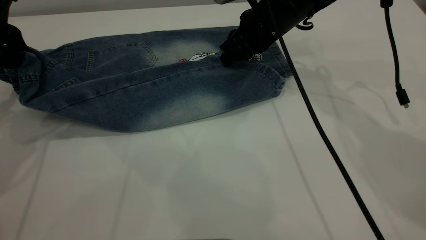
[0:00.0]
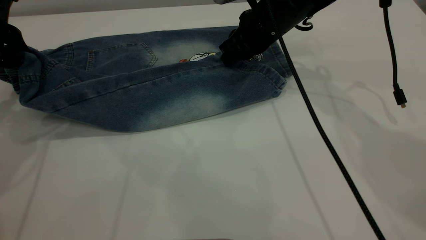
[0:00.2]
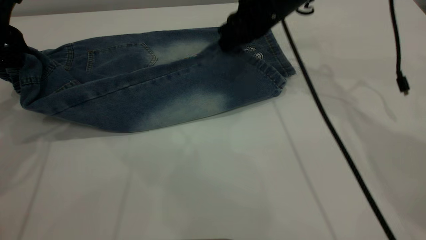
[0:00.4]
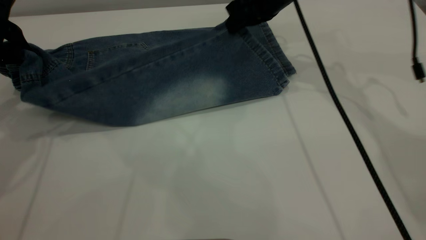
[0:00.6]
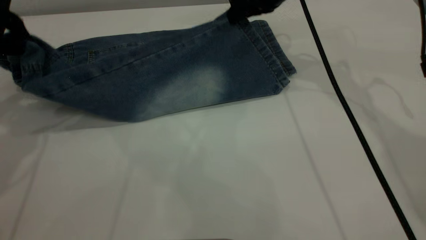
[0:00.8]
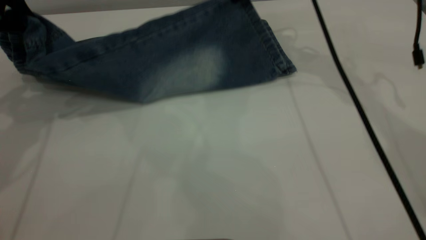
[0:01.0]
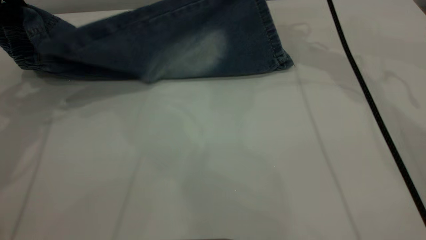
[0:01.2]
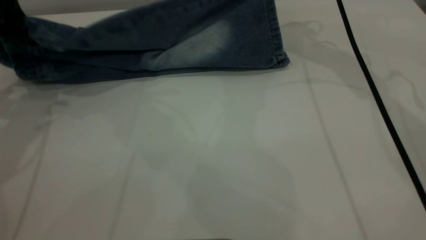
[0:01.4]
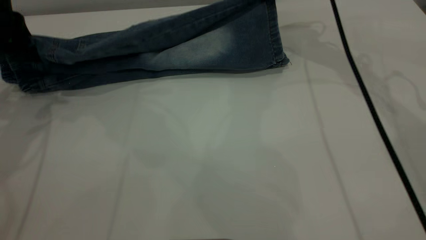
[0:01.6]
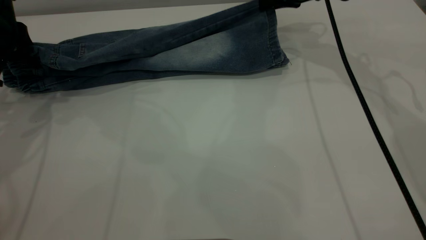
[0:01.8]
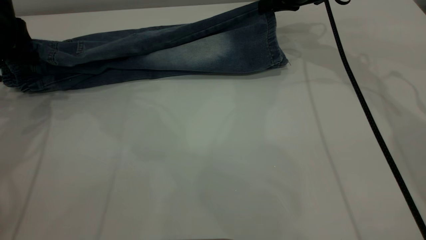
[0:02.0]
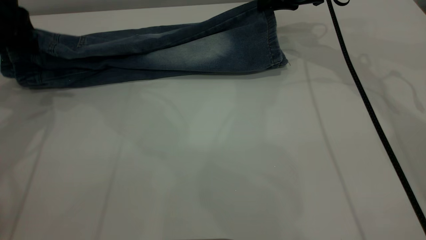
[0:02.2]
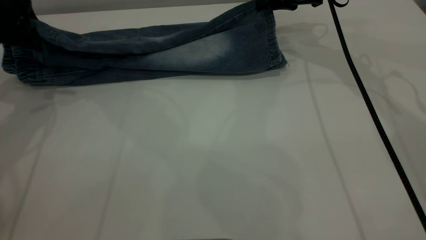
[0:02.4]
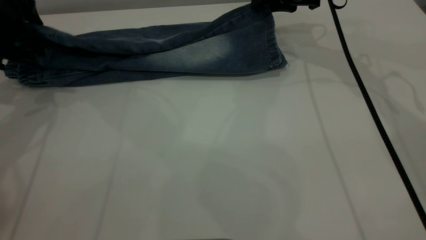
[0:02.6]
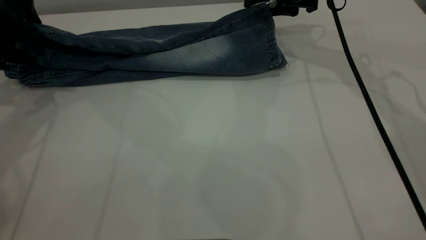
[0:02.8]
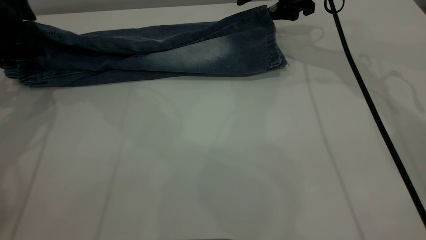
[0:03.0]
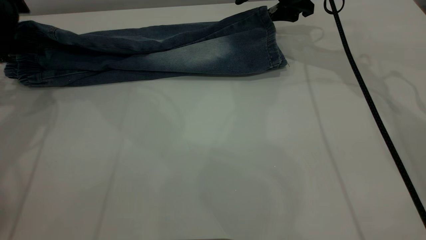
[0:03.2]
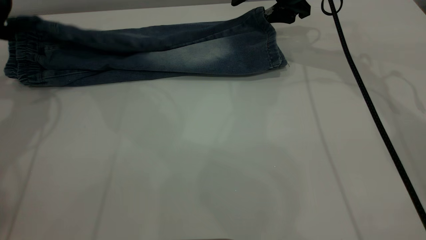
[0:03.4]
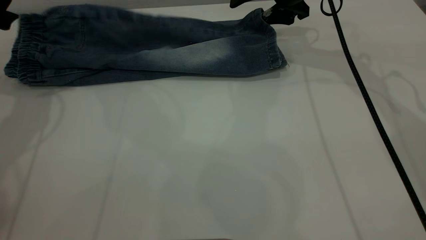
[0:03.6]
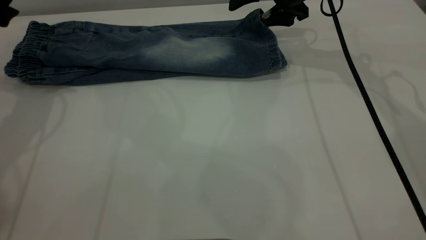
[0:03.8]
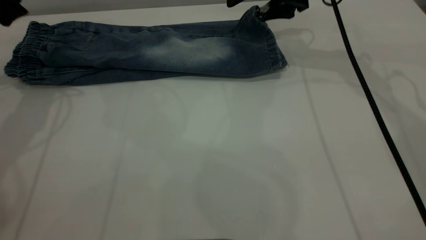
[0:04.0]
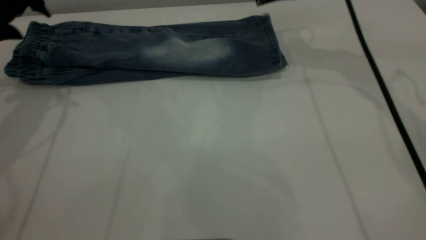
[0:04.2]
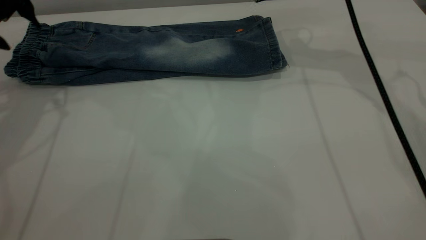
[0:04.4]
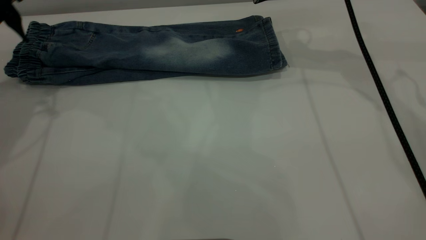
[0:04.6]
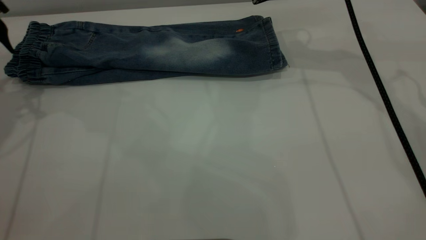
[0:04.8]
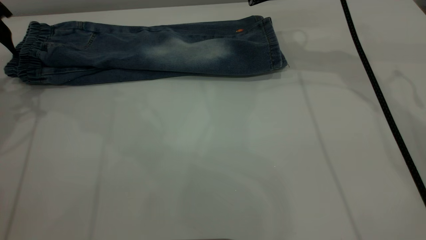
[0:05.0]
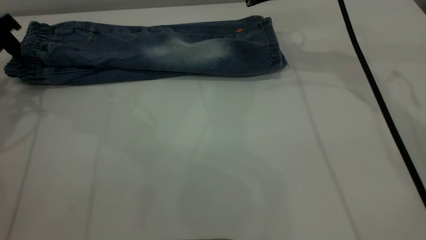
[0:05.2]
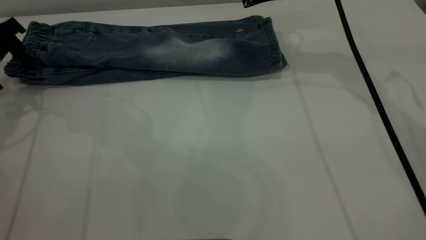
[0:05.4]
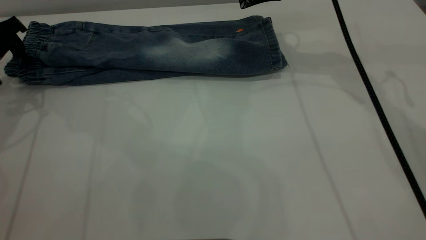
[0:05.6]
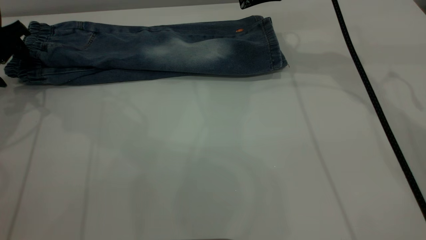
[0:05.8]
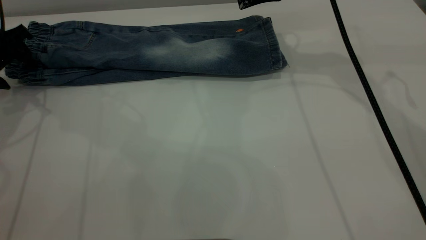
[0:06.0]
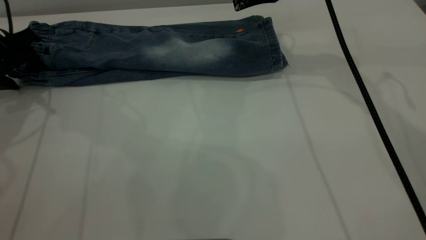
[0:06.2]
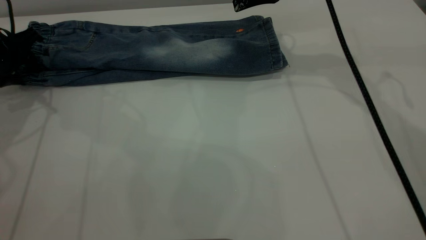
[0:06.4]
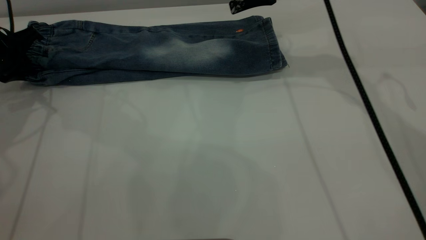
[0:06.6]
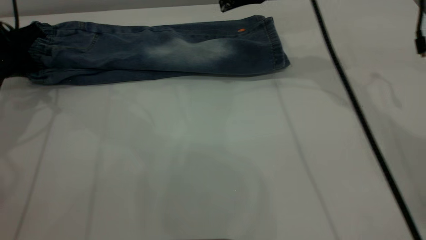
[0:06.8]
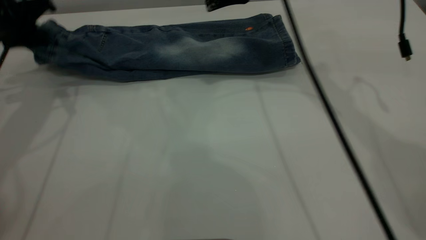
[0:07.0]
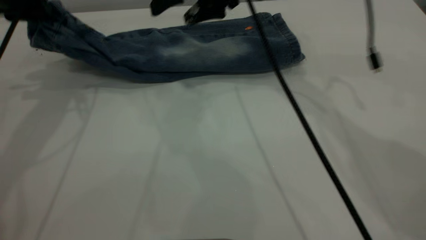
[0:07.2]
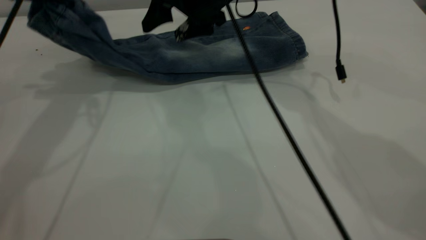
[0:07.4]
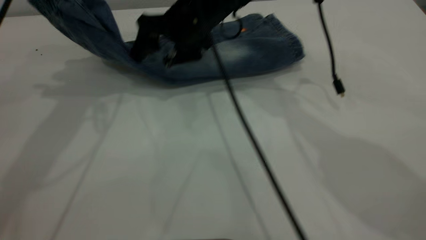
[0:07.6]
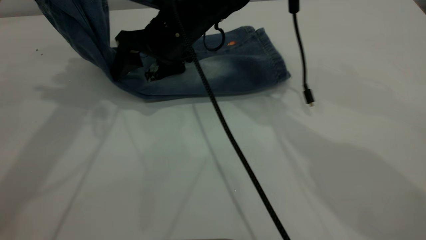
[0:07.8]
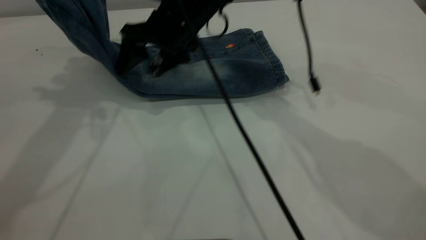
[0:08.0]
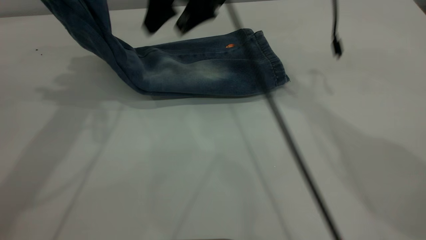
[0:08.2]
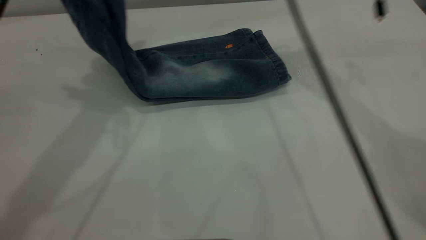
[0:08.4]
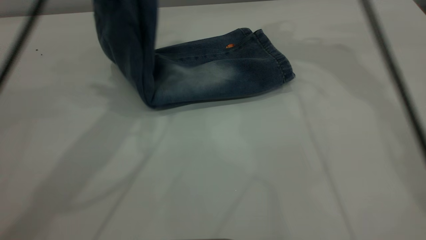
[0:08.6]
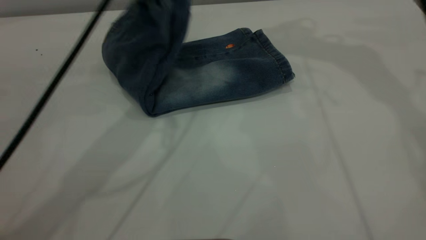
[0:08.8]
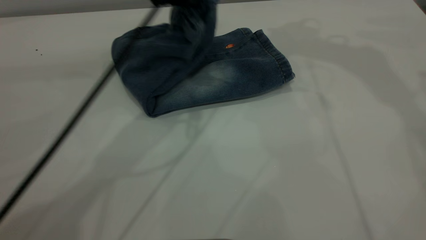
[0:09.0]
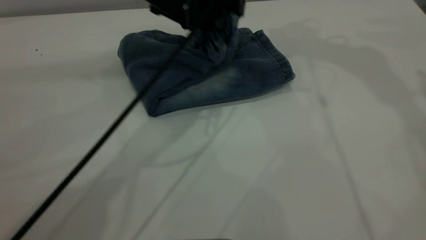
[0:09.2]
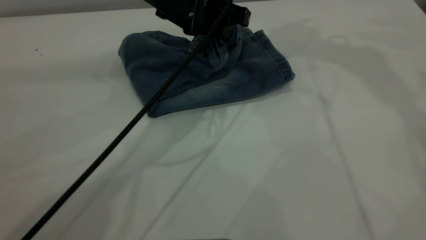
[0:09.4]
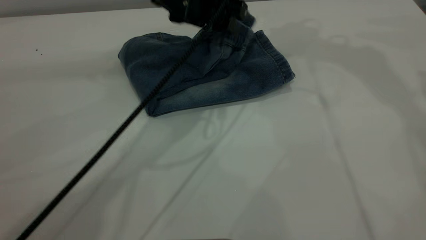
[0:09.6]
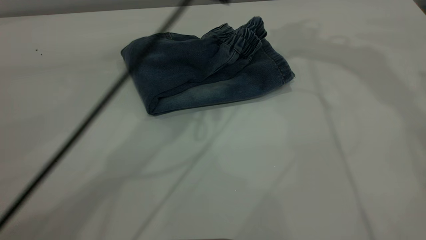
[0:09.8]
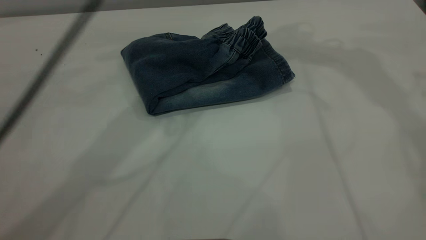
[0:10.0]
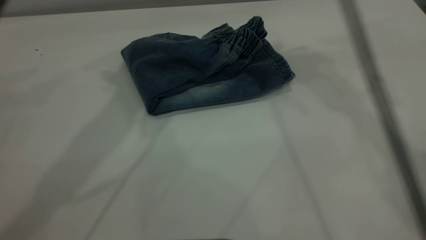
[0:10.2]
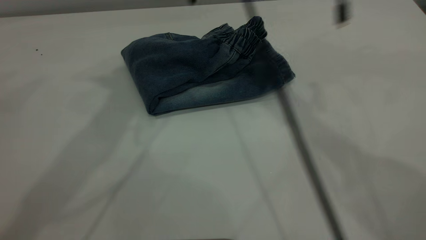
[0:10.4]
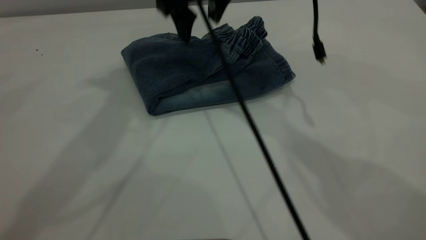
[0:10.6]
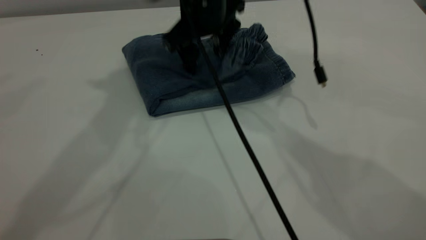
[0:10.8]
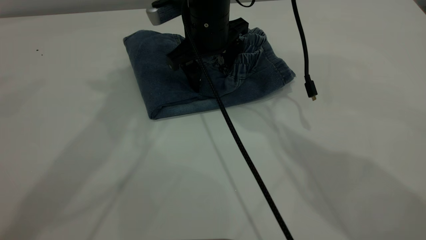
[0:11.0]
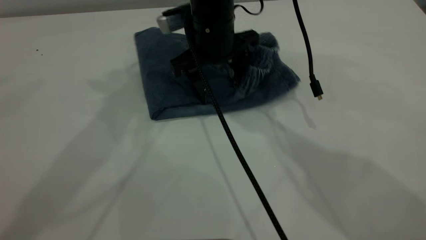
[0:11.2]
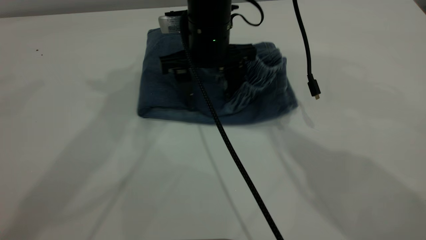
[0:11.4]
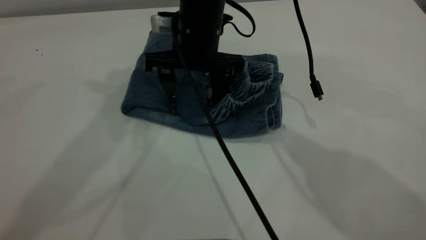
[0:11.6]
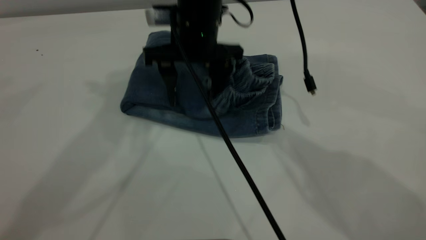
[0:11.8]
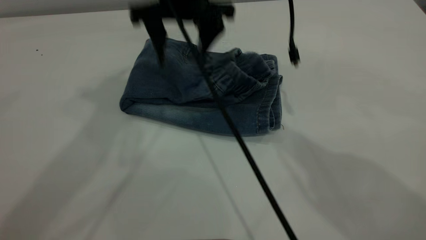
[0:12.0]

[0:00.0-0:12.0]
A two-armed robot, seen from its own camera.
Step, 0:00.0 to 0:04.4: Fold the bottom of the pants upward.
Step, 0:04.6 to 0:10.0: Fold the pants from left to right.
0:00.0 to 0:01.6: The right gripper is displaced to the right, upward and forward by roughly 10 cm.
0:01.6 to 0:03.0: The right gripper opens up; the left gripper opens.
0:03.0 to 0:04.4: The right gripper heads upward, covering approximately 5 cm.
0:04.4 to 0:06.0: The left gripper is displaced downward by some 10 cm.
0:06.0 to 0:07.6: The right gripper moves to the left and downward, roughly 15 cm; the left gripper shifts roughly 20 cm upward and to the right, and closes up.
0:07.6 to 0:09.0: The right gripper goes roughly 30 cm upward and to the right. Meanwhile the left gripper shifts roughly 20 cm to the right and downward.
0:09.0 to 0:10.4: The right gripper shifts some 20 cm to the left and downward. Meanwhile the left gripper heads upward and to the left, covering about 20 cm, and opens up.
0:10.4 to 0:12.0: The right gripper moves roughly 10 cm downward and comes back. The left gripper moves about 5 cm.

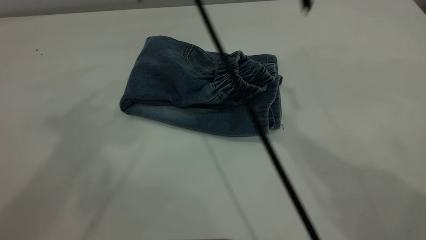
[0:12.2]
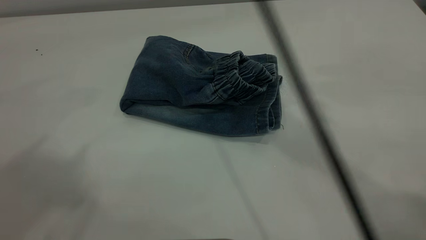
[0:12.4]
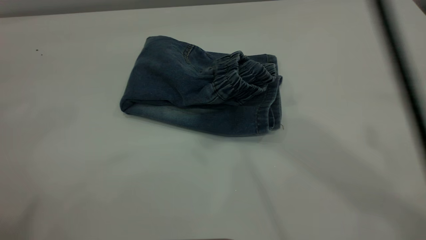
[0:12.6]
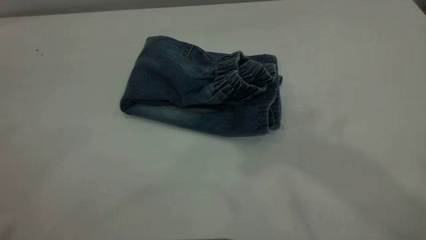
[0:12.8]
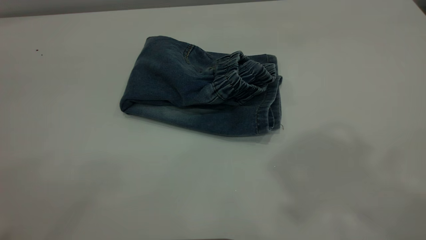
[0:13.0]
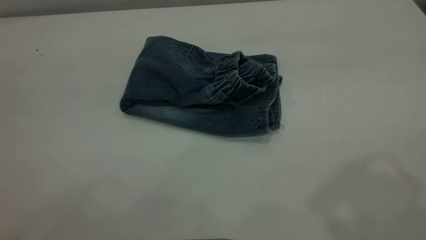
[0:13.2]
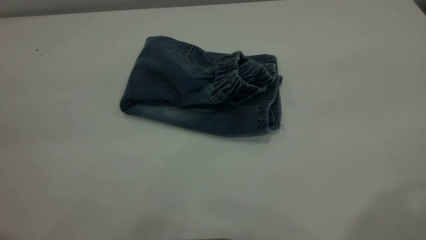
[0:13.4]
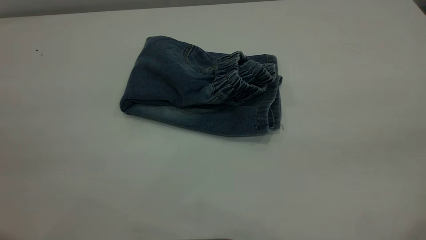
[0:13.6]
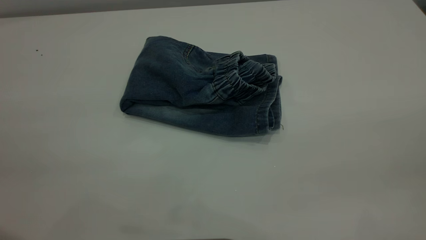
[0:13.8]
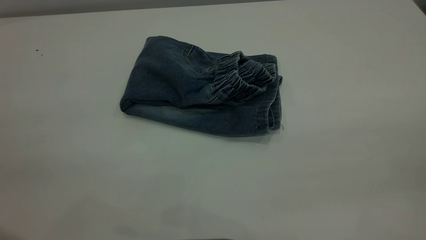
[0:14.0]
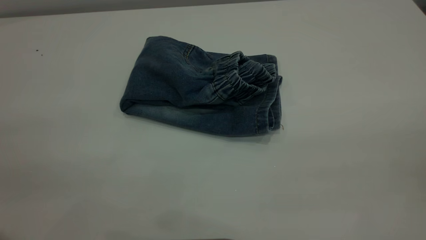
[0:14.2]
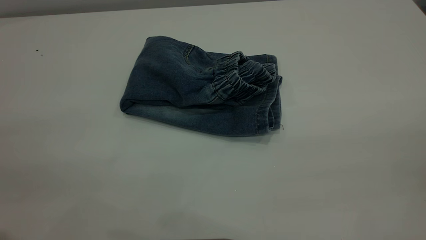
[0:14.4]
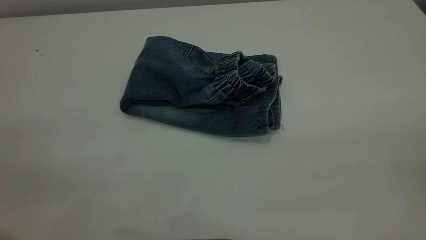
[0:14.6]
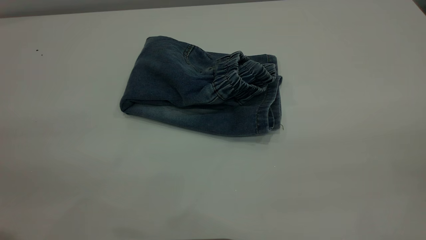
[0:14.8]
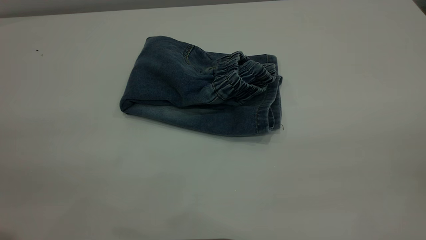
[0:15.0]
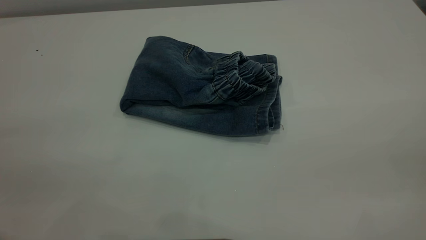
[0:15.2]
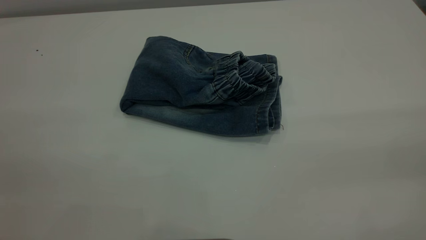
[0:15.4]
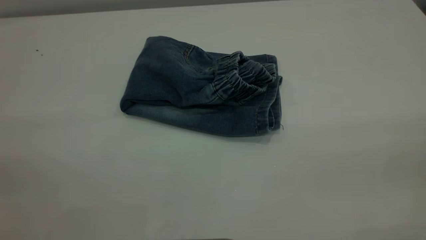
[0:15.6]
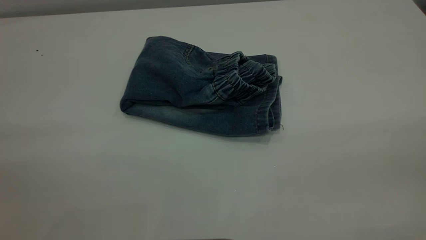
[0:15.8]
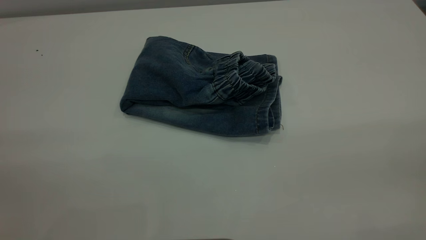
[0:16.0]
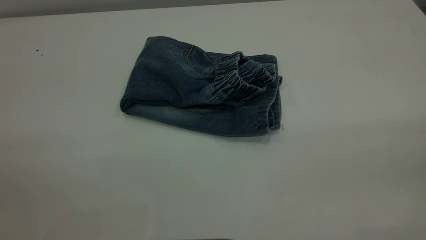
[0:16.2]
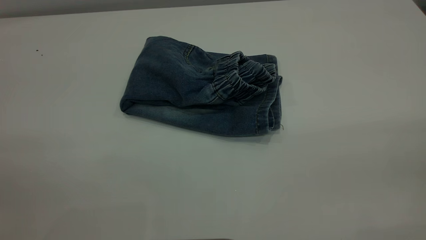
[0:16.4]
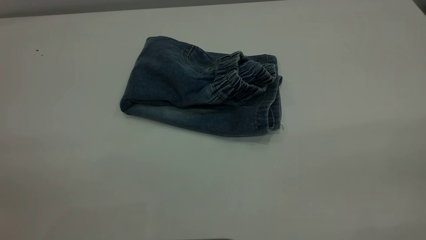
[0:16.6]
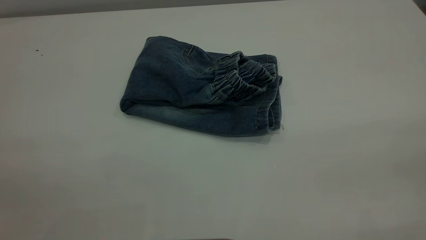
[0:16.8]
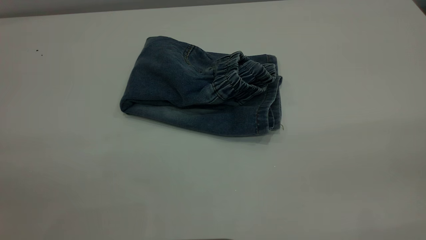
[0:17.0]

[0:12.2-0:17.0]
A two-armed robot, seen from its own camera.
0:12.2 to 0:13.8: The right gripper shifts roughly 40 cm backward and to the right. Meanwhile the left gripper shifts some 25 cm backward and downward.
